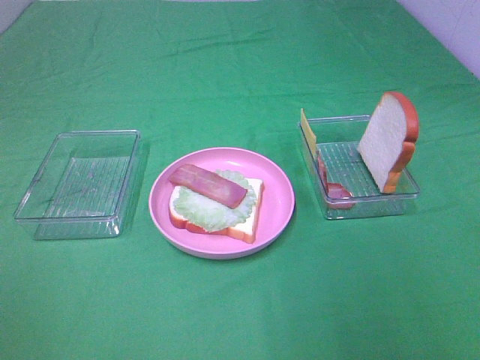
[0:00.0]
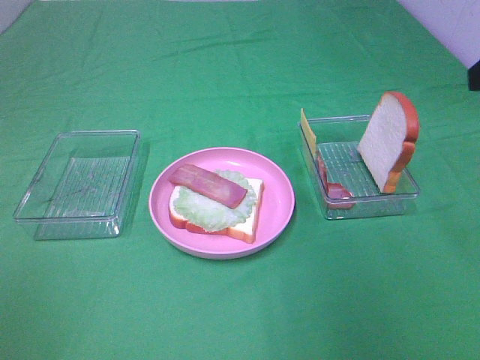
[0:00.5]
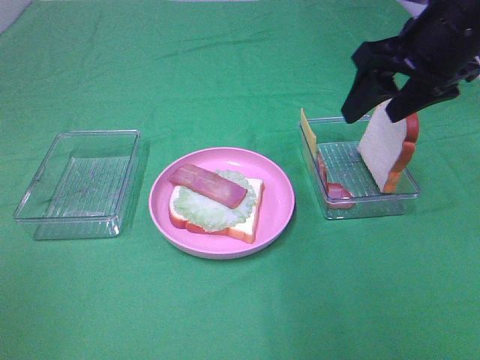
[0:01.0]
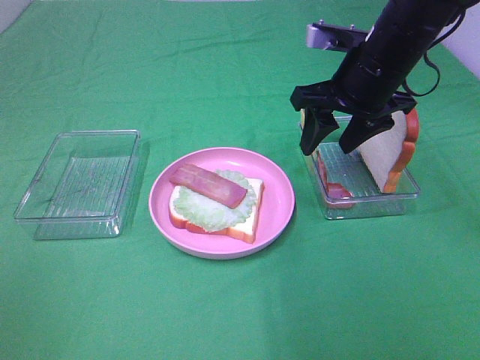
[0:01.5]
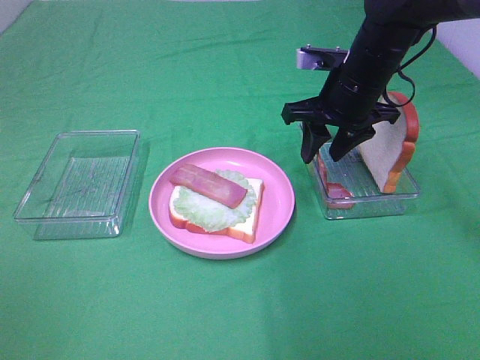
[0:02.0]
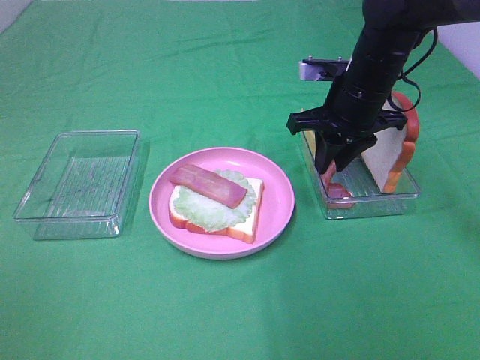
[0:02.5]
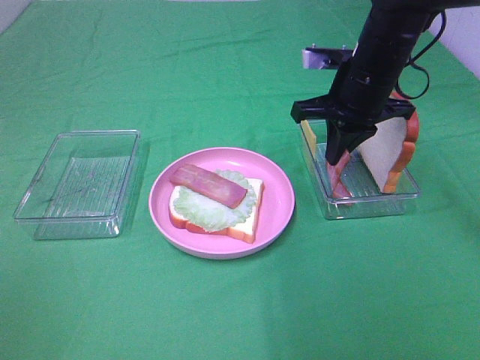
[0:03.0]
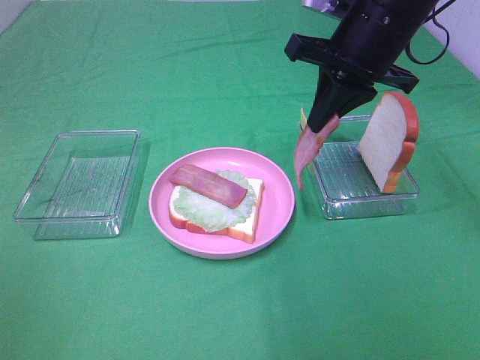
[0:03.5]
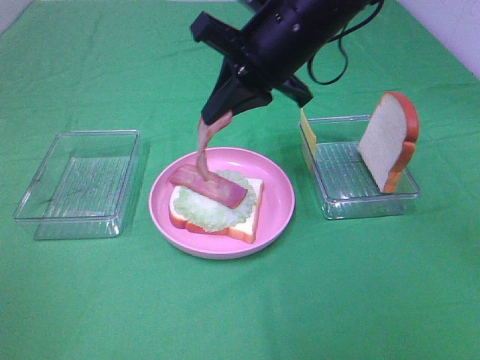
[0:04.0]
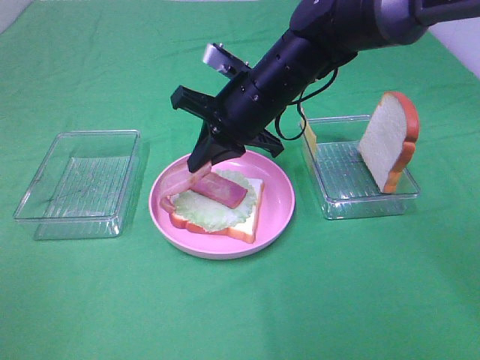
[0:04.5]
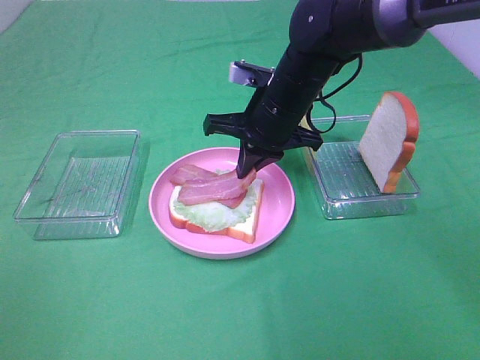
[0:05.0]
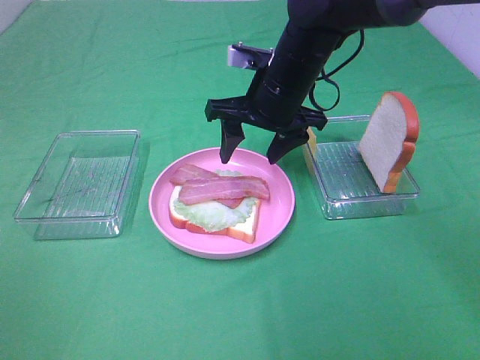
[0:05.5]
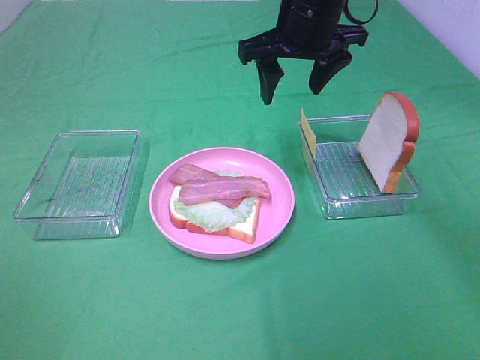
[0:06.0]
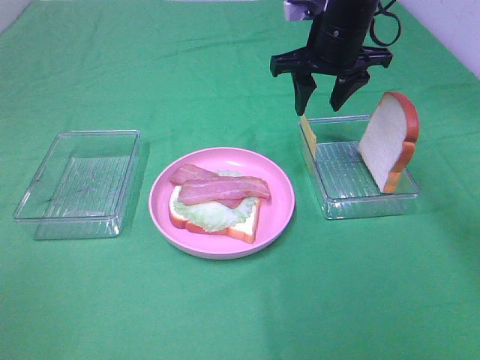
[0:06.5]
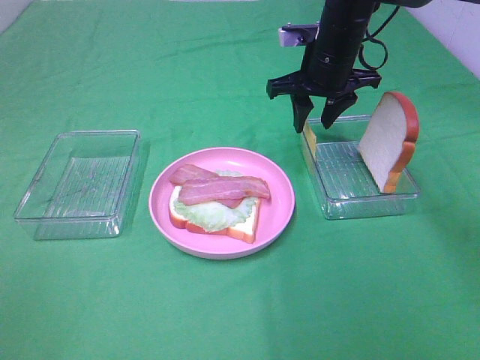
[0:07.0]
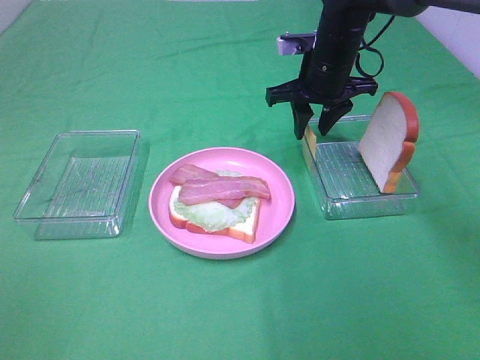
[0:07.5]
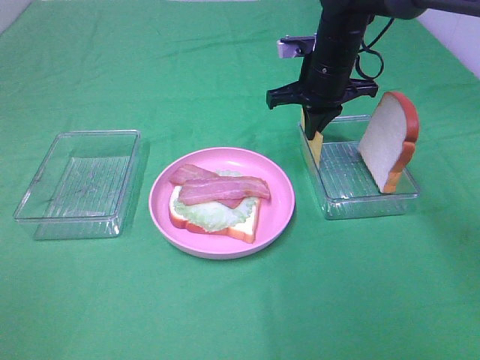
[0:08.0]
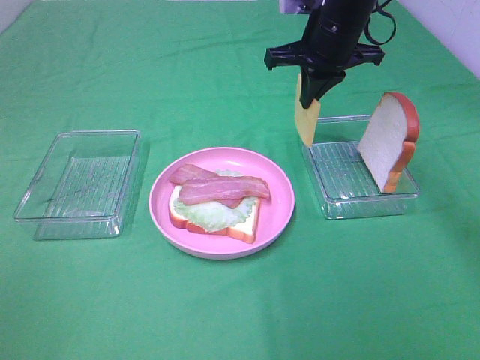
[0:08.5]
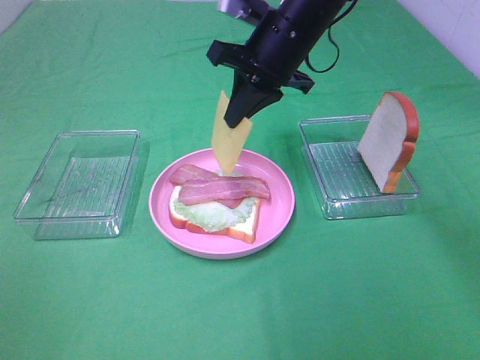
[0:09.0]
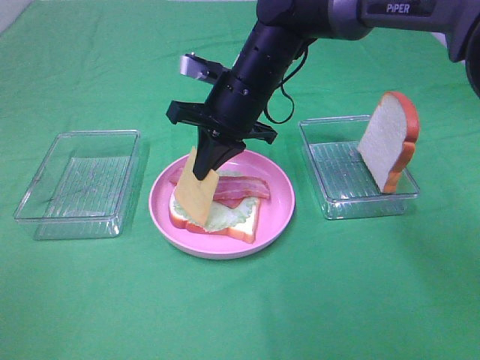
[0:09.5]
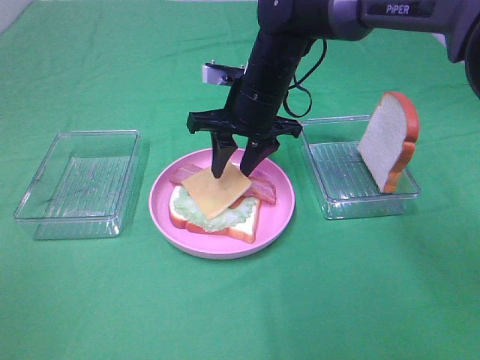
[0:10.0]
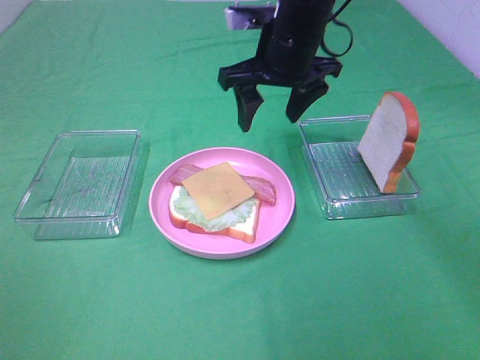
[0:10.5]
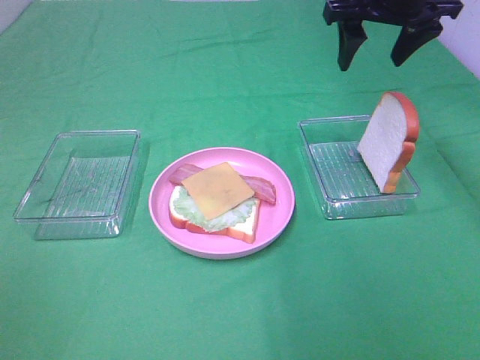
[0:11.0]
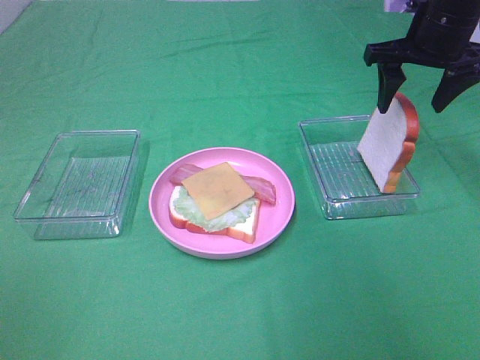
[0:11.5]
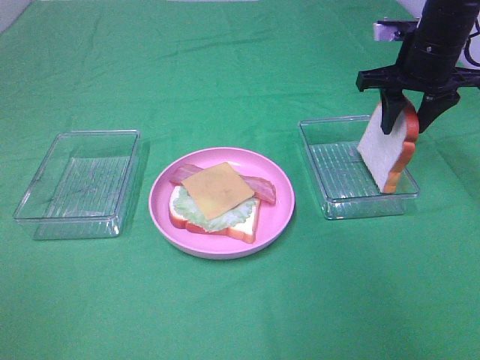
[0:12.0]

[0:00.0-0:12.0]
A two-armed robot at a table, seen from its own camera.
Task of the whole recording: Make sandwiches.
Step, 0:00.0 to 0:02.5: Right hand:grab the bacon.
Step, 0:03.0 to 0:05.5: Right hand:place bacon on bacon.
Step, 0:06.0 to 0:08.0: Right hand:grab the cheese slice.
Step, 0:08.5 to 0:10.0: Right hand:place the cheese slice on top of the bacon.
0:00.0 to 0:02.0: The right gripper travels forward, downward and to the left by approximately 40 cm, and closes.
0:02.0 to 0:04.0: The right gripper moves to the left and upward, approximately 10 cm, and closes.
0:04.0 to 0:06.0: The right gripper moves forward, about 5 cm, reaches roughly 10 cm downward, then returns, and opens.
0:06.0 to 0:08.0: The right gripper heads downward, covering some 10 cm, and closes its fingers.
0:08.0 to 0:10.0: The right gripper travels to the left and backward by some 10 cm, and opens.
0:10.0 to 0:12.0: The right gripper goes some 20 cm to the right.

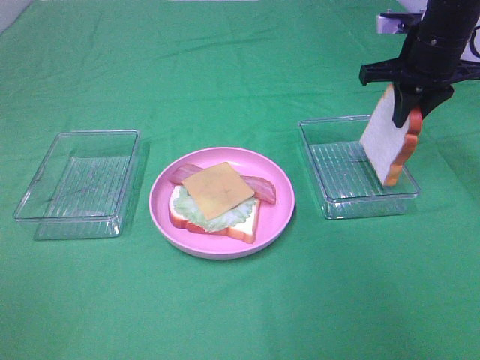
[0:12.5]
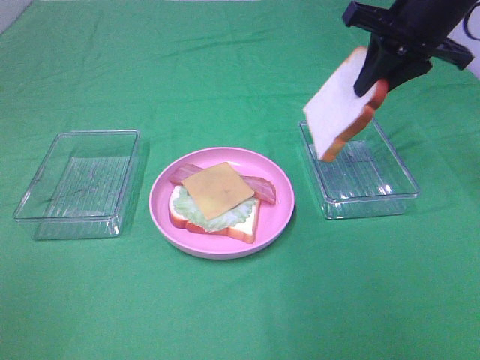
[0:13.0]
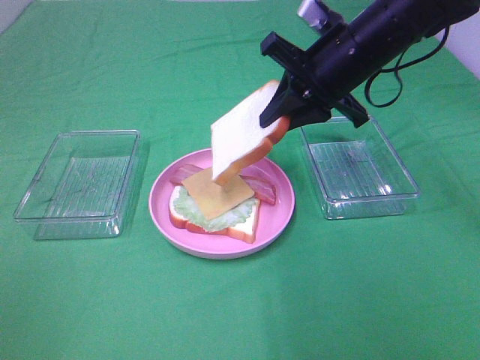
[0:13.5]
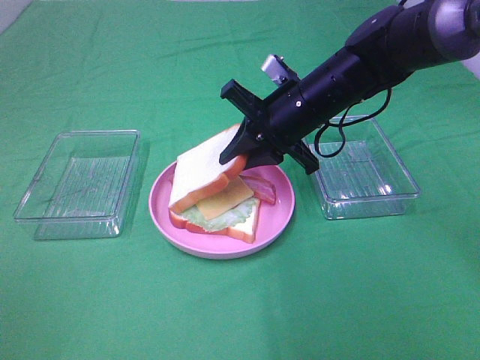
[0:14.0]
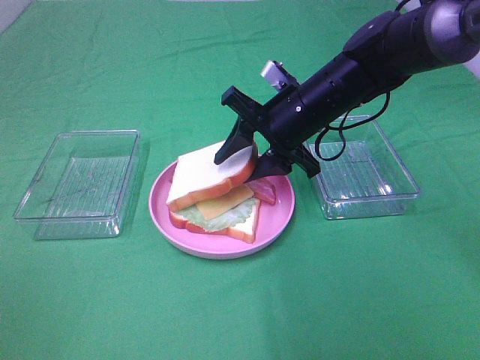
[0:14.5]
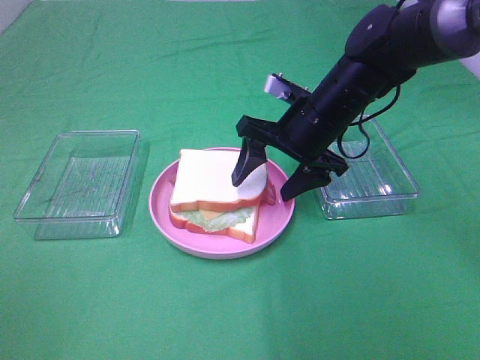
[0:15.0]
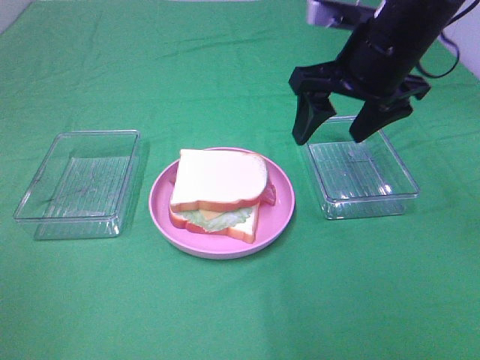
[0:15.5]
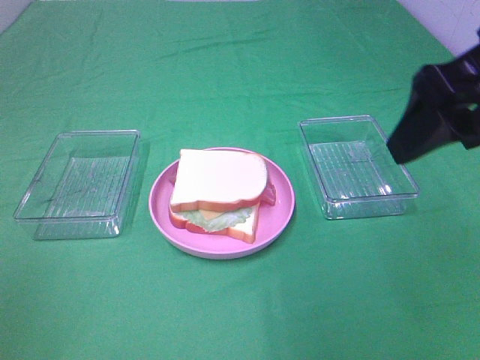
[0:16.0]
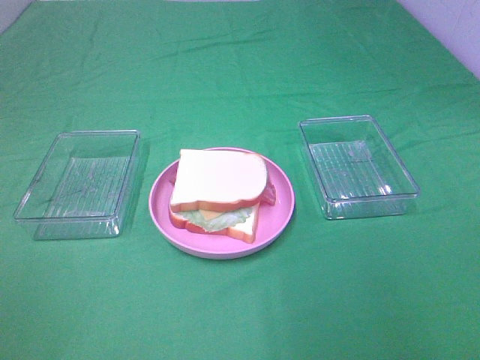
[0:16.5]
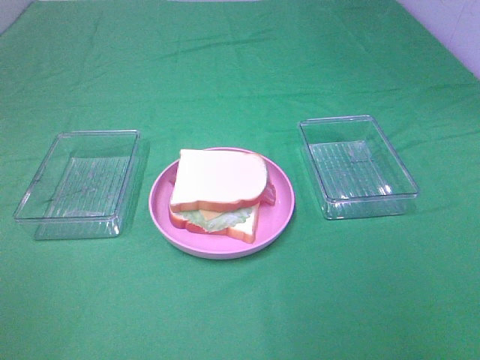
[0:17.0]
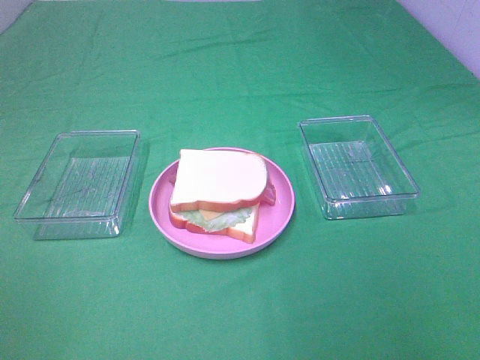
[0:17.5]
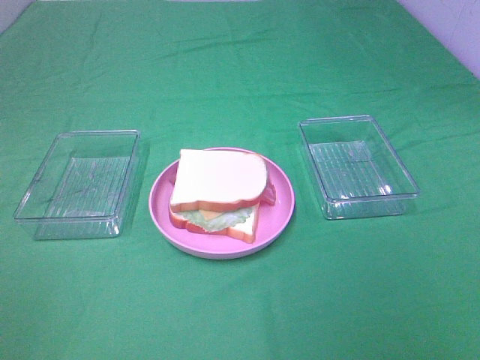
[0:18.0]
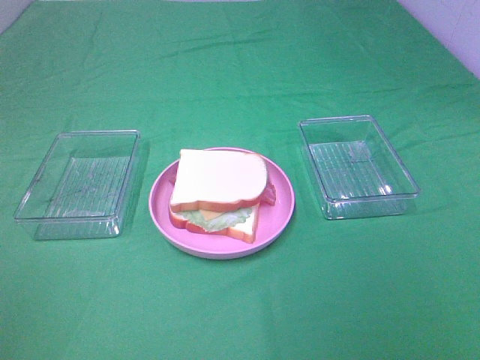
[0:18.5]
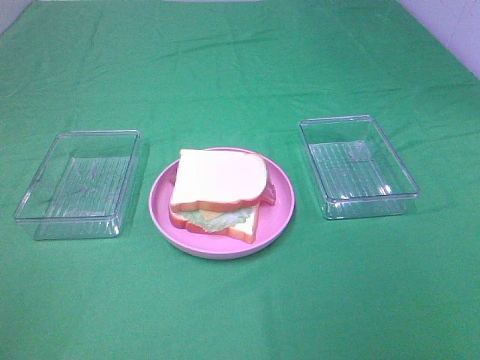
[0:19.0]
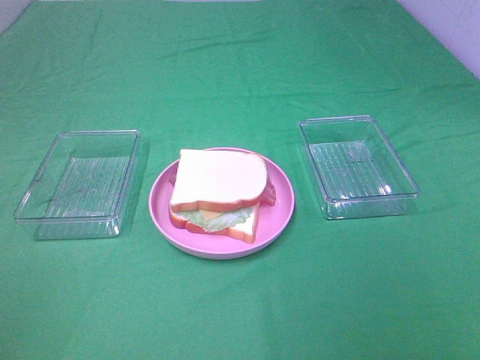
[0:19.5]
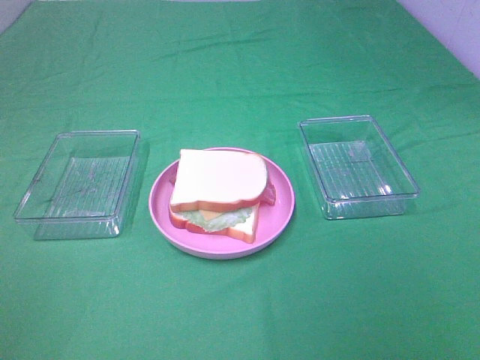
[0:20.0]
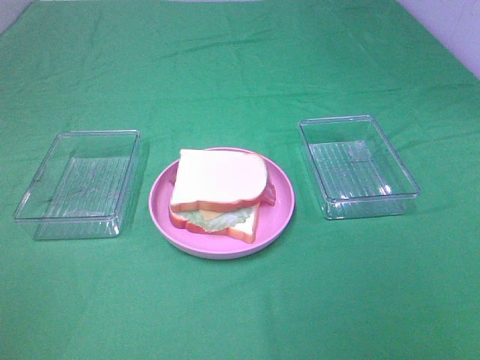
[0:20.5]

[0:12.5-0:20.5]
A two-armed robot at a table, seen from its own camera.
Task of the whole recording: Make sandwiches.
Step, 0:12.5 to 0:15.0: Right hand:place the bread slice on the cheese slice.
0:12.5 to 0:14.5: The right gripper moves to the left and downward, approximately 15 cm, and opens its fingers.
0:14.5 to 0:16.5: The right gripper is displaced backward, to the right and upward by approximately 40 cm.
0:18.5 to 0:20.5: The two grippers keep their place.

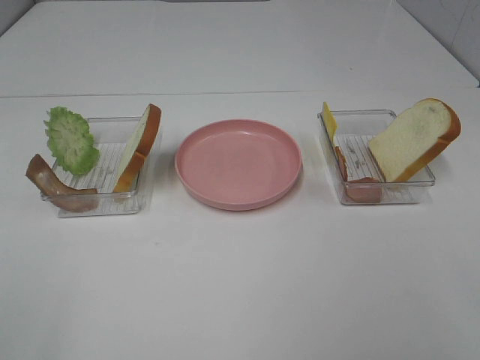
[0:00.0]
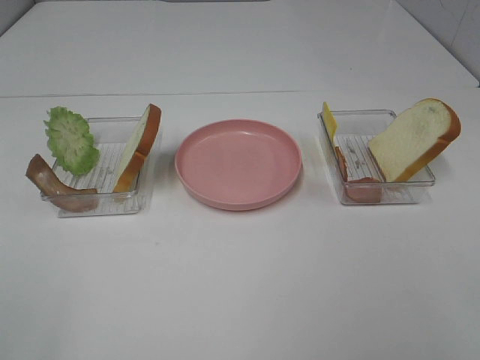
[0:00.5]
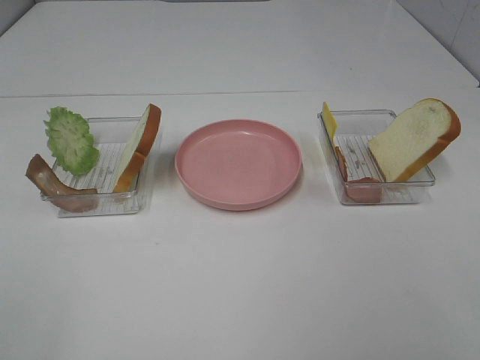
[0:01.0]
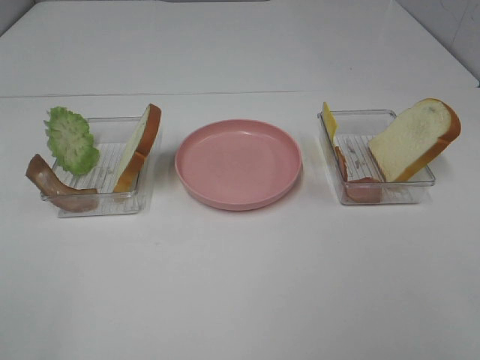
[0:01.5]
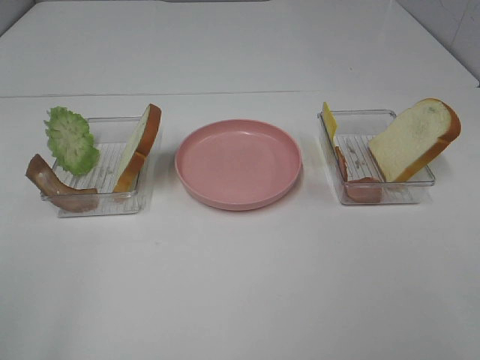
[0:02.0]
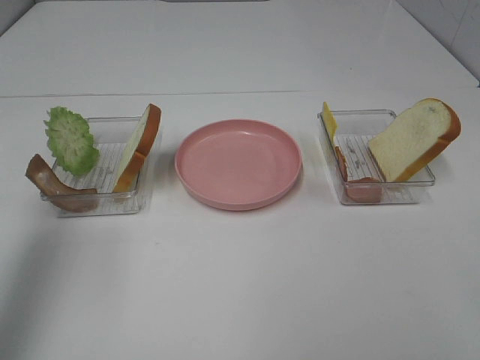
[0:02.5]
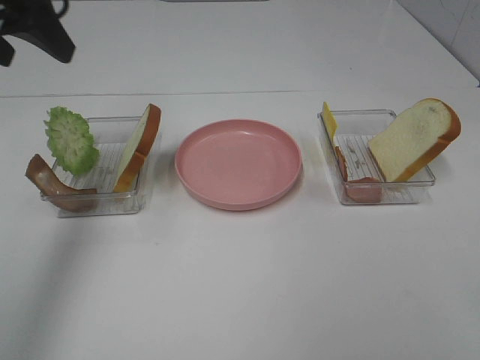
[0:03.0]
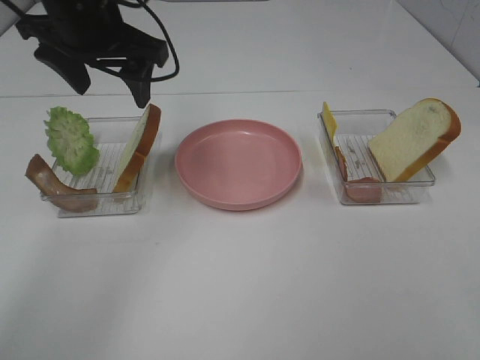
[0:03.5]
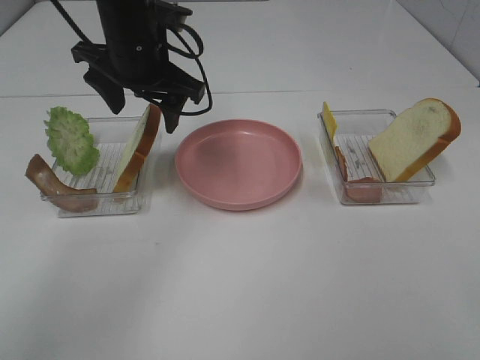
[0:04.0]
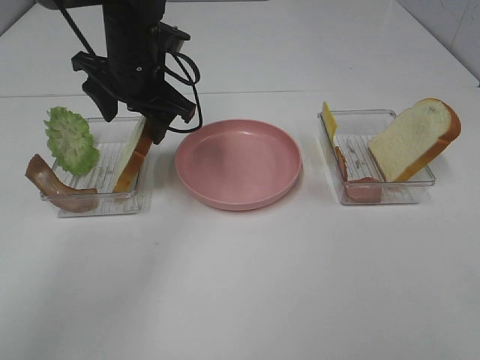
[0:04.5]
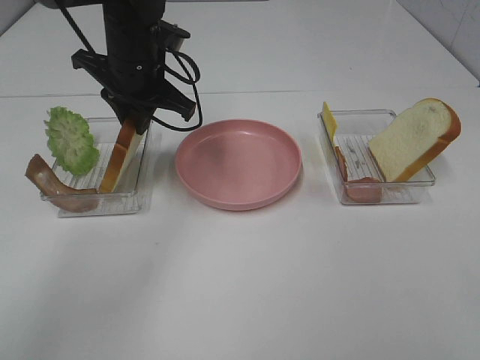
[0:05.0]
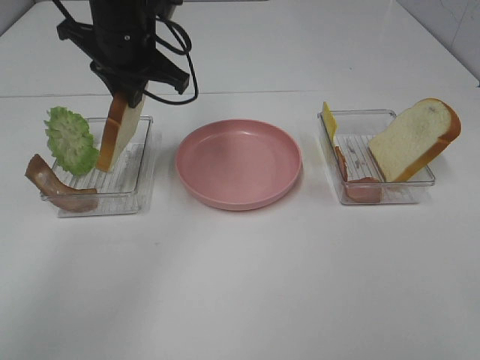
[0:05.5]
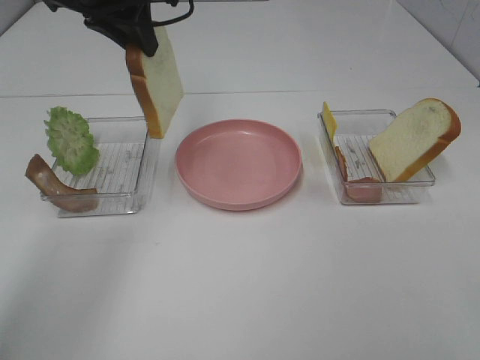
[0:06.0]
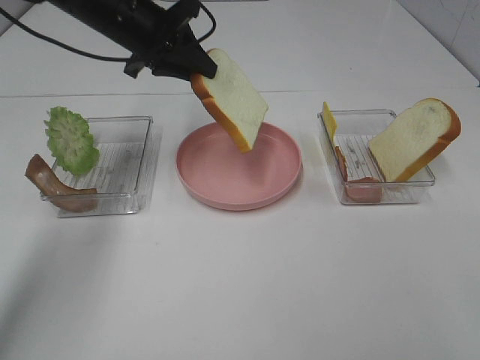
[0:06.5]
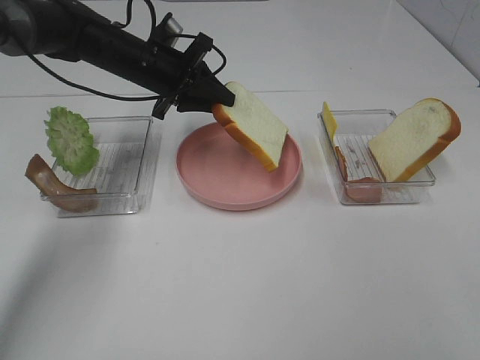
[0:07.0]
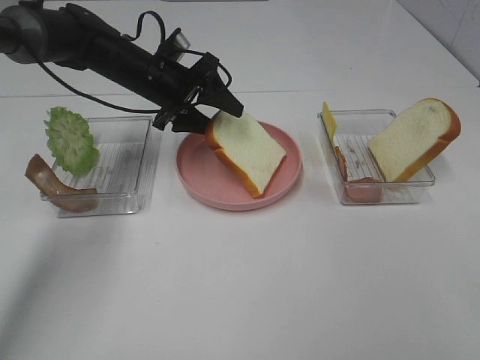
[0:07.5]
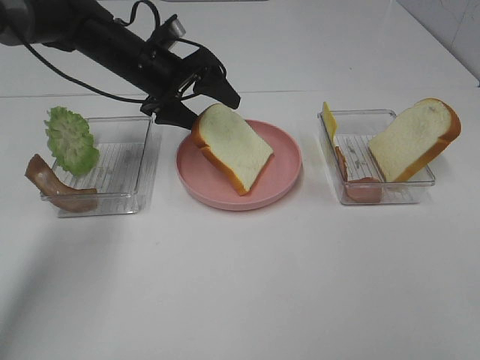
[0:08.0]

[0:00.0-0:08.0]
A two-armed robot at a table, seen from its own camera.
Task of the whole recording: Make sandwiches.
Step, 0:00.0 to 0:05.0: Left hand:grab the bread slice.
0:02.0 to 0:04.0: The left gripper is displaced forward and to the right by about 40 cm.
0:04.0 to 0:06.0: The left gripper travels upward by about 10 cm, and closes its fingers.
0:06.0 to 0:08.0: The left gripper goes approximately 15 cm downward, and opens its fingers.
